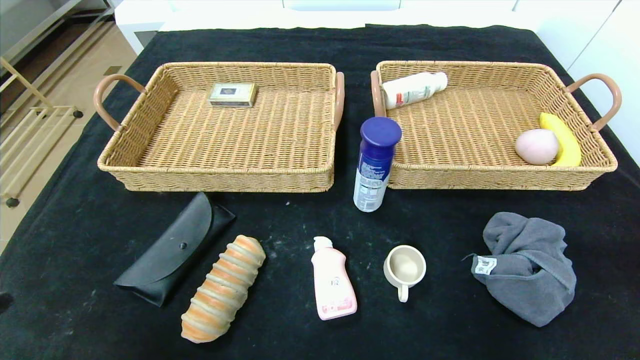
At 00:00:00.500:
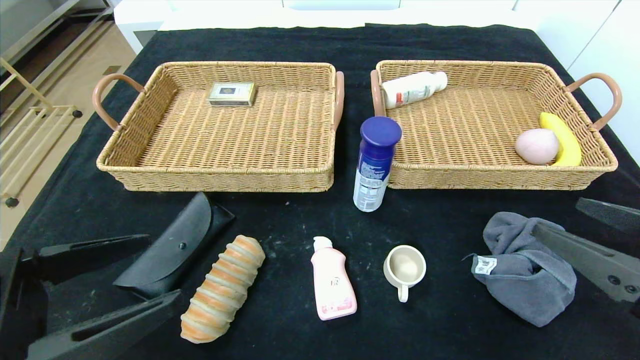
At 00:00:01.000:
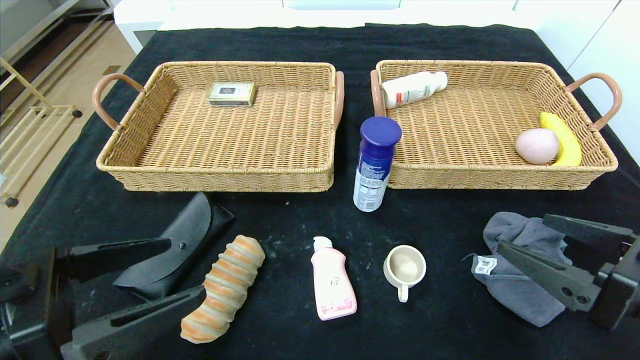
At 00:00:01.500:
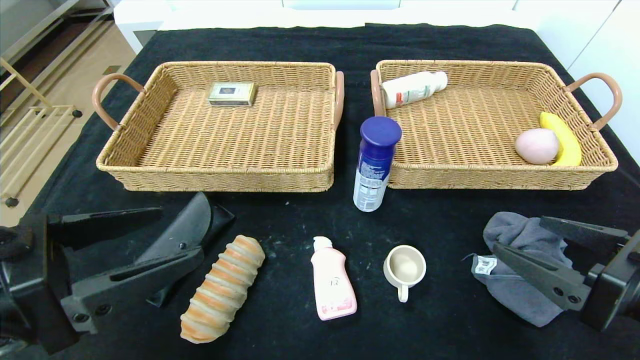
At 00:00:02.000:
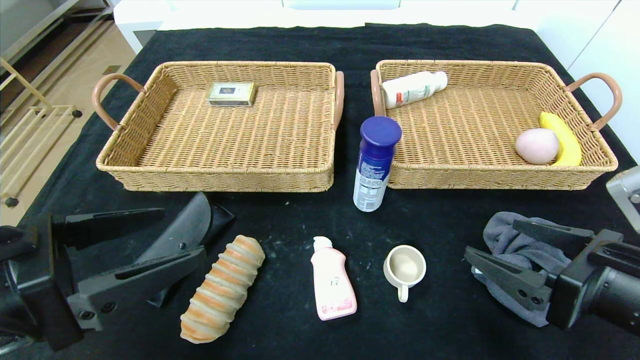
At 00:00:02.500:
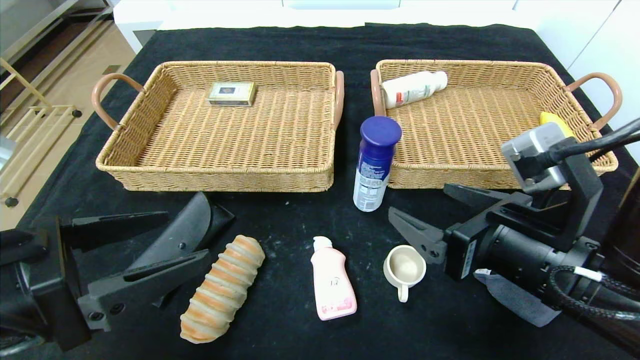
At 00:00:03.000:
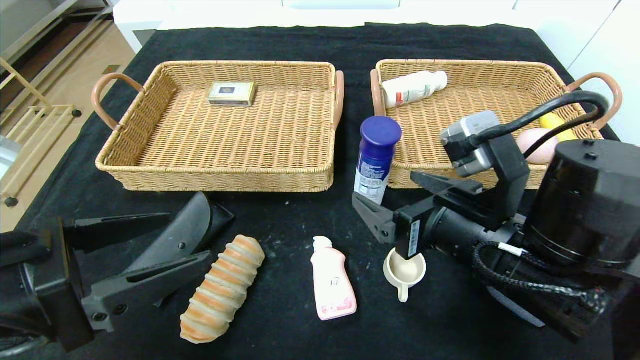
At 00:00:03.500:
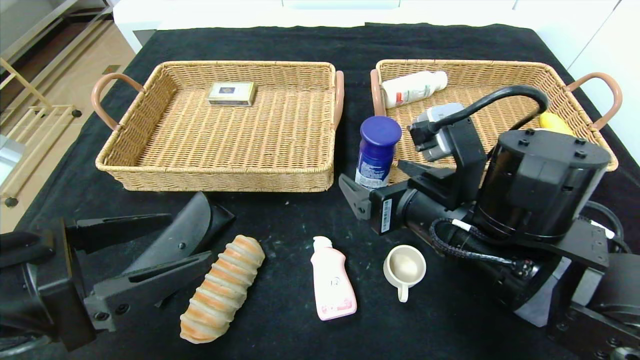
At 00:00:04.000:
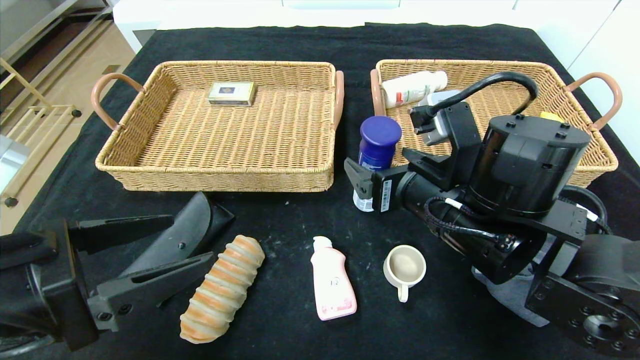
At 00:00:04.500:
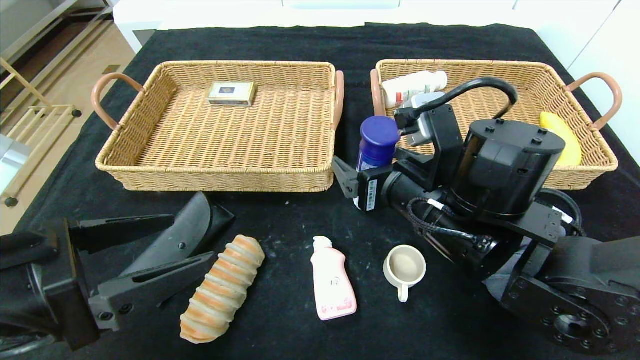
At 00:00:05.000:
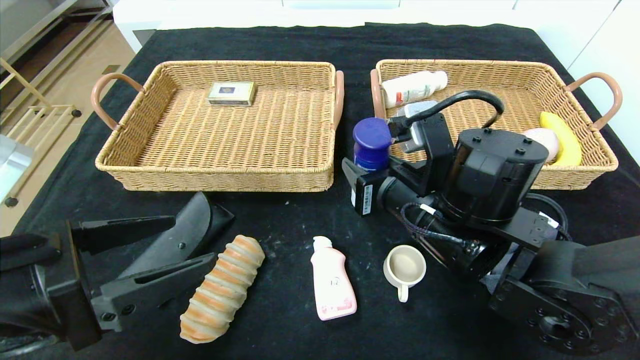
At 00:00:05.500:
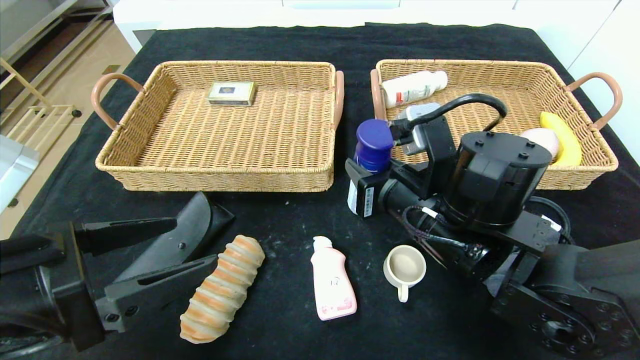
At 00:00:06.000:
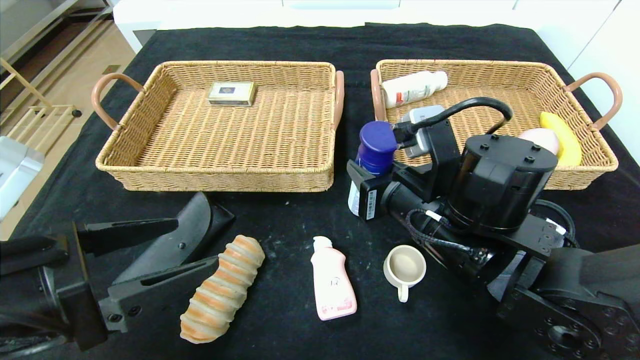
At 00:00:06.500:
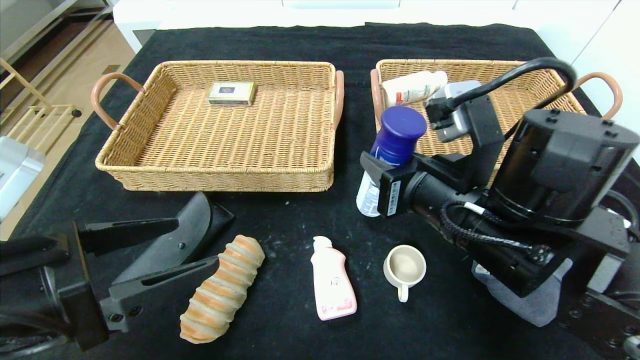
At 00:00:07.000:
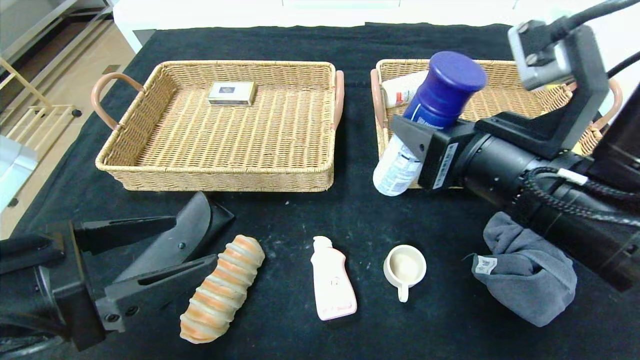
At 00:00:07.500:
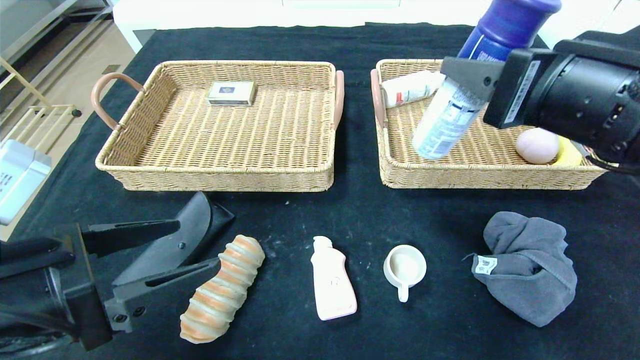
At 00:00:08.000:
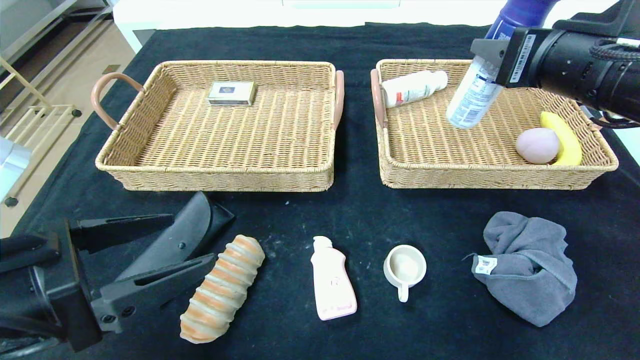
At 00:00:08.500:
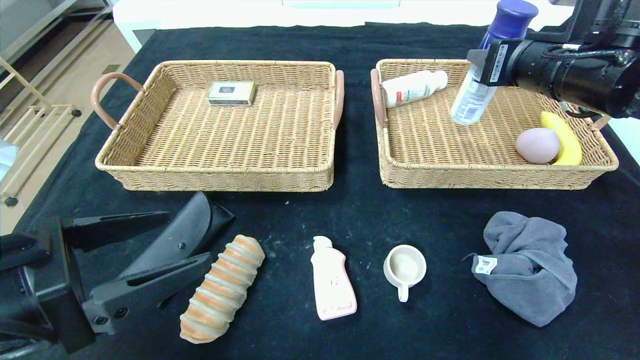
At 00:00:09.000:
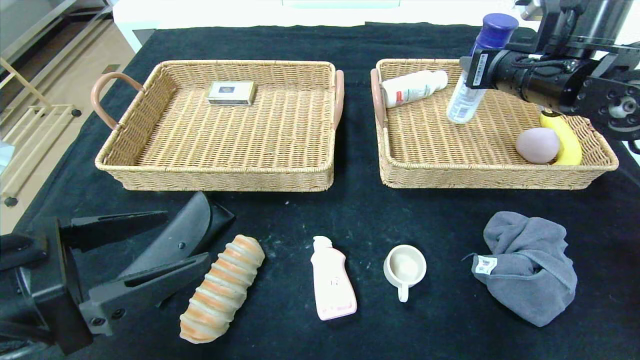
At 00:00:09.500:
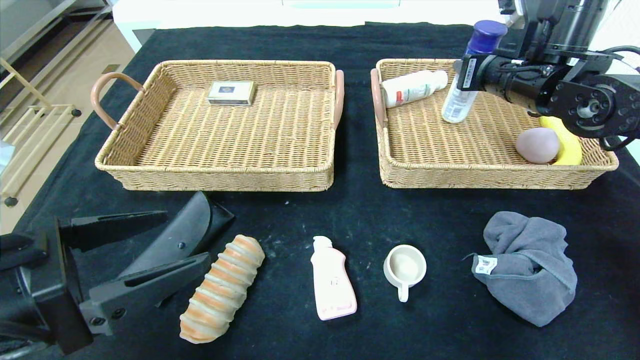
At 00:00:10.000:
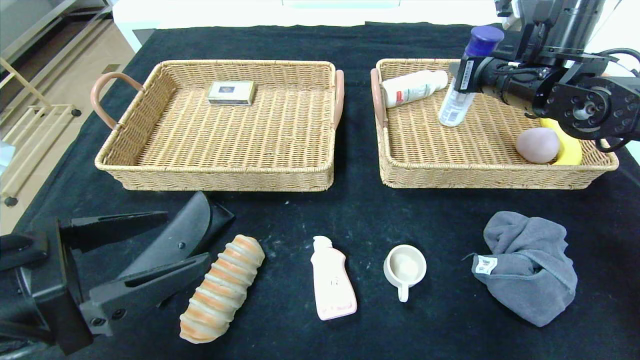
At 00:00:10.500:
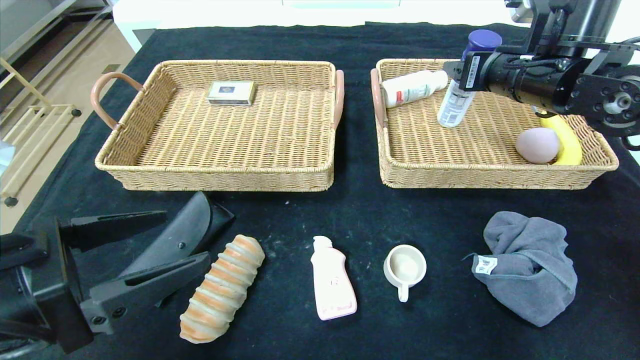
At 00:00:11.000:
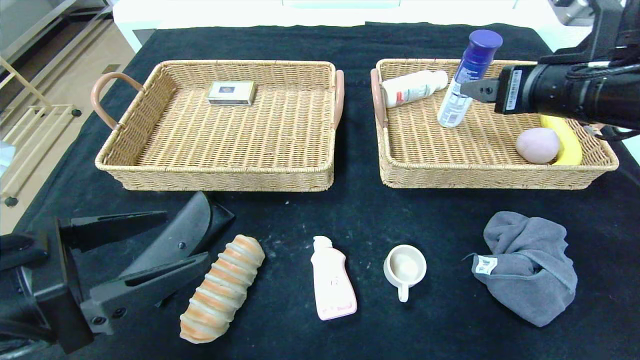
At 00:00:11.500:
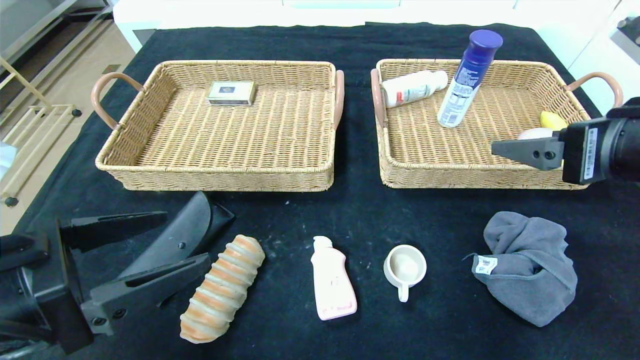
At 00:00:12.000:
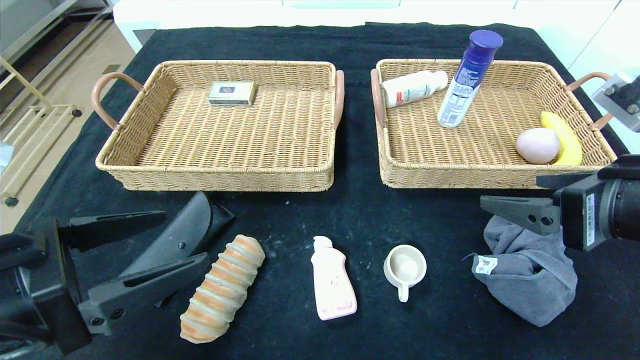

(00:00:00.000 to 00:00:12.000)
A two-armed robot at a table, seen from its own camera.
Step, 00:00:00.000 - 00:00:10.500: Grasp the yogurt and put it in the right basket.
00:00:00.000 - 00:00:02.000: The left gripper travels forward by roughly 10 cm. Meanwhile the right gripper travels forward and to the left by roughly 15 cm.
00:00:02.000 - 00:00:04.000: The right gripper is displaced to the left and forward by approximately 15 cm.
00:00:04.000 - 00:00:06.000: The right gripper closes.
00:00:06.000 - 00:00:08.000: The right gripper goes roughly 20 cm upward and to the right.
00:00:08.000 - 00:00:10.000: The right gripper moves forward, about 15 cm.
00:00:10.000 - 00:00:12.000: The right gripper moves backward, roughly 25 cm, and opens up.

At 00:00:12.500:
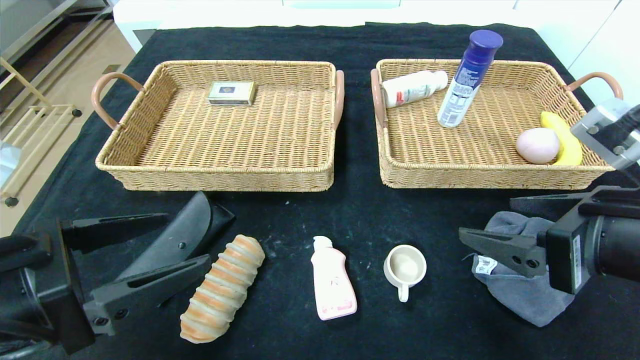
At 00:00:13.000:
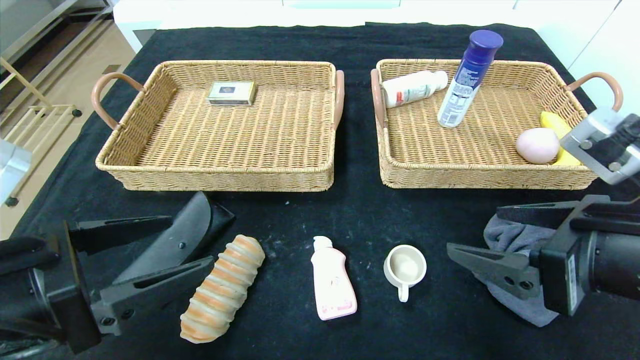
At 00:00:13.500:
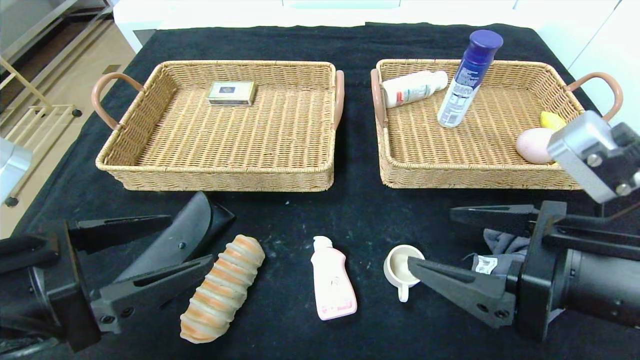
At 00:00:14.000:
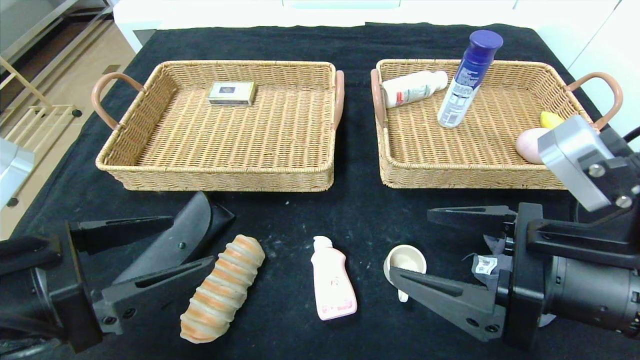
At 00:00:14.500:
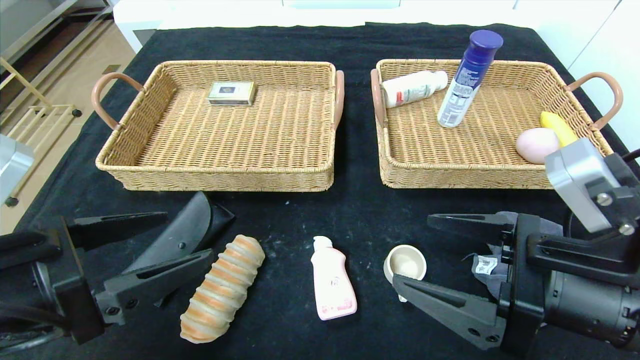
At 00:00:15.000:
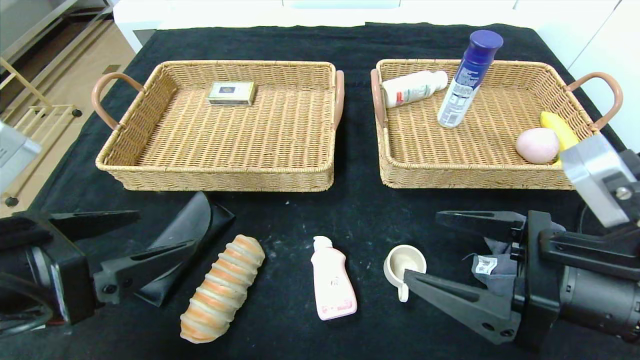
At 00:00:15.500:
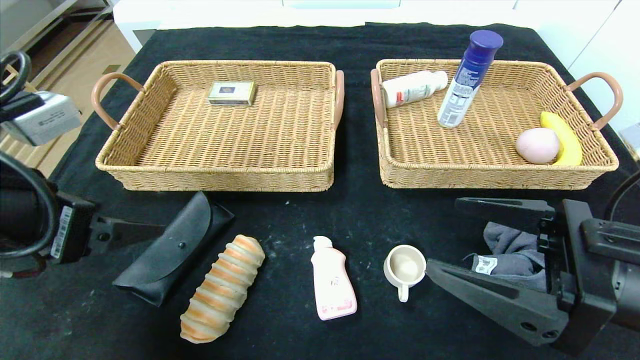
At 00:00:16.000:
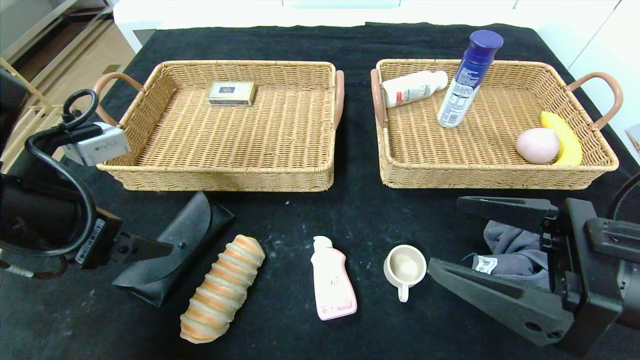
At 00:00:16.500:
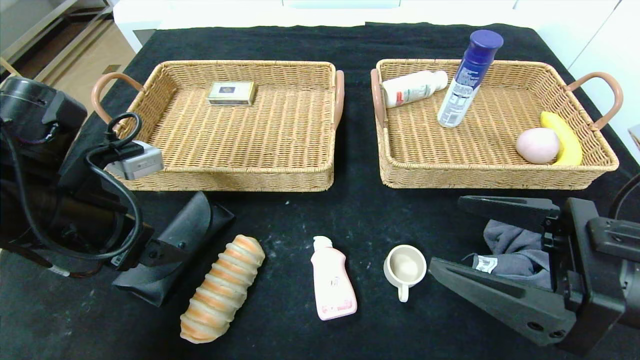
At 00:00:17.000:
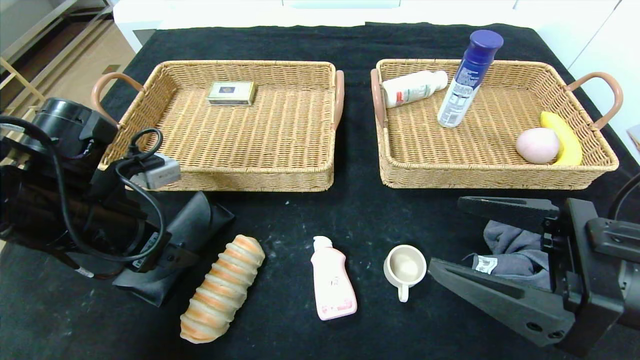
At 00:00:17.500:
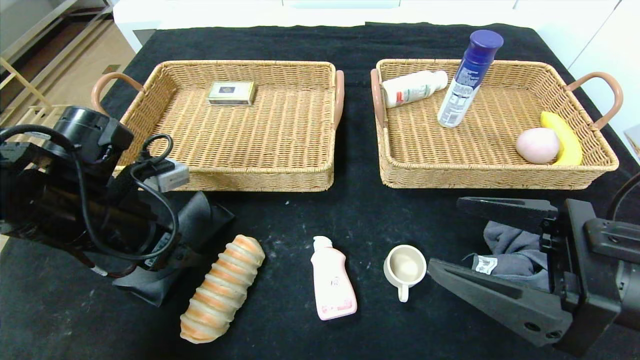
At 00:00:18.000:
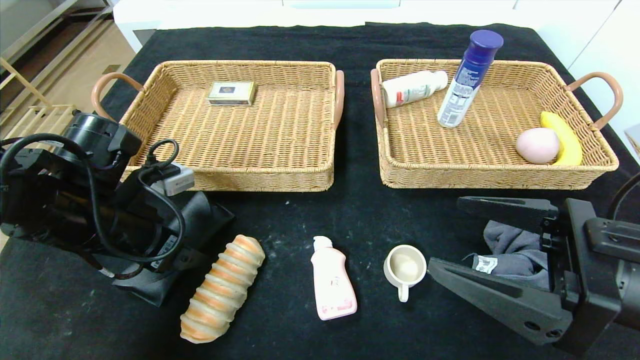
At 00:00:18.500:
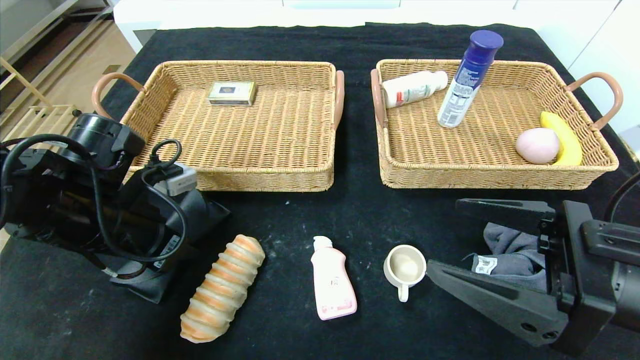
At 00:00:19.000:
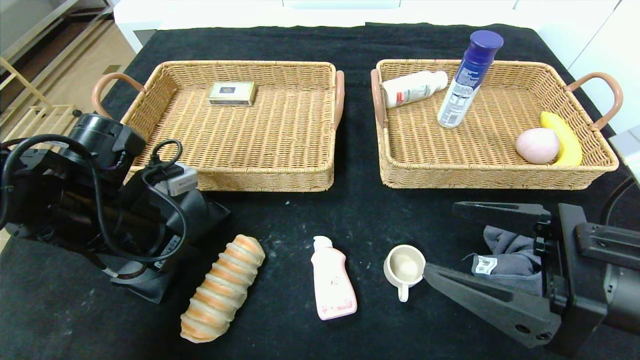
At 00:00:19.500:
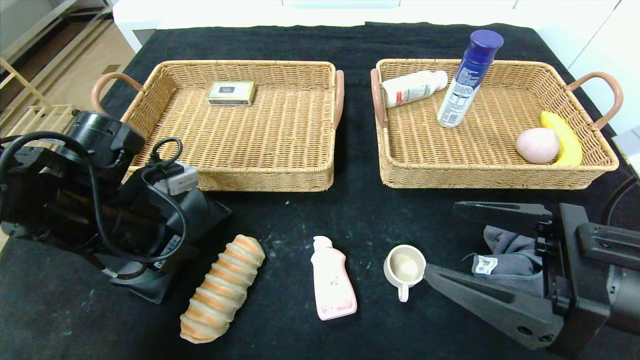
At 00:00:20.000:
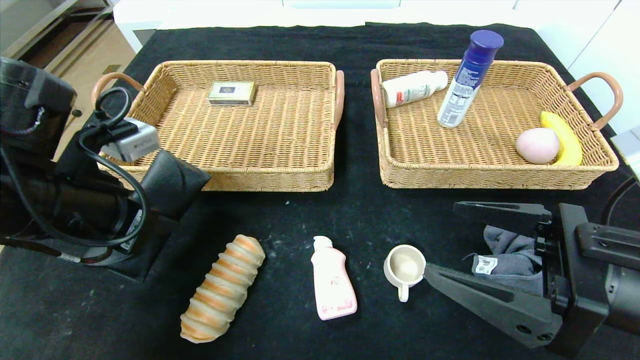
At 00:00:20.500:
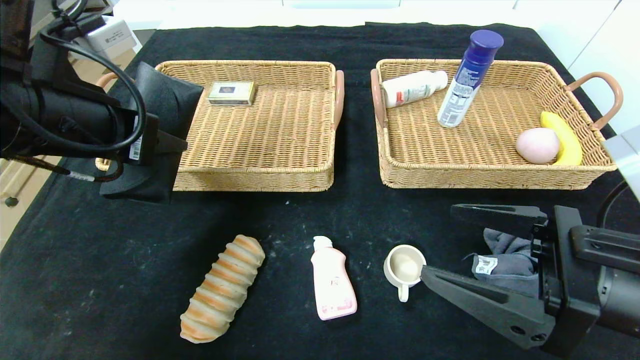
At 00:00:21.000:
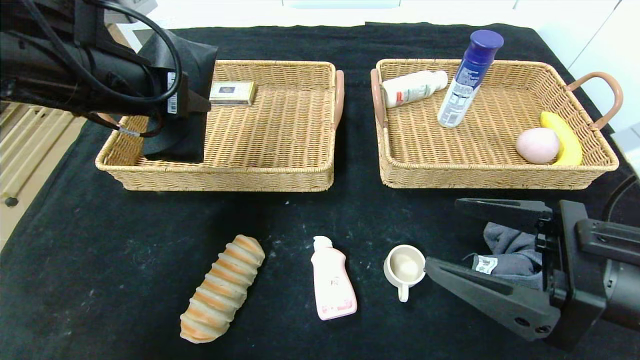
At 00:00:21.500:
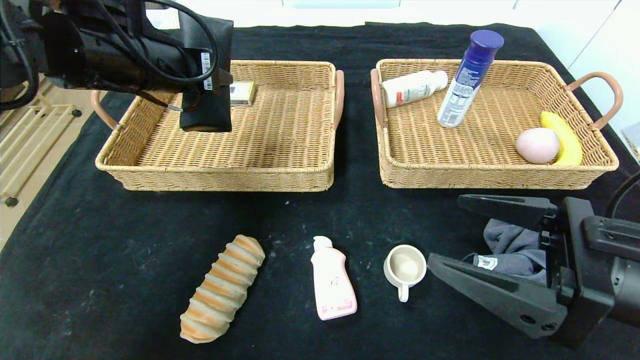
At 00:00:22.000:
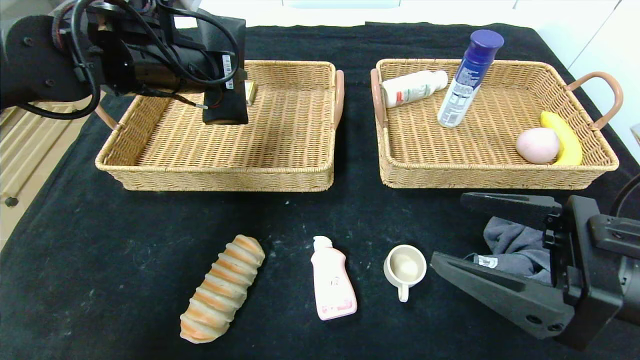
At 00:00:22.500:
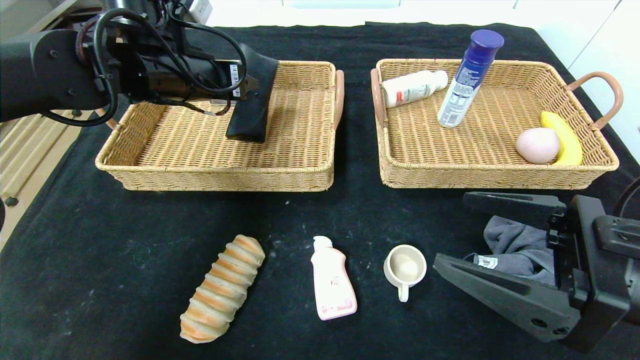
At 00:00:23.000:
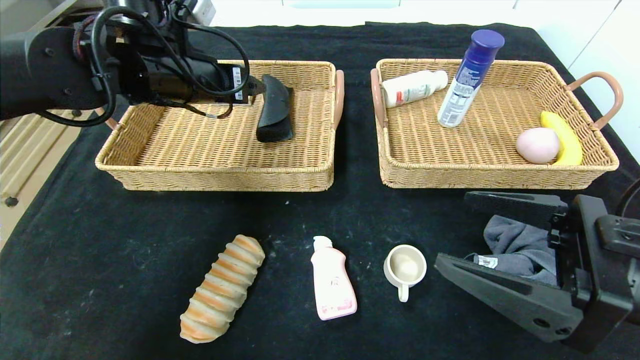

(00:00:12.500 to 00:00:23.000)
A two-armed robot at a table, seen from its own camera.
Step, 00:00:12.500 - 00:00:22.500: Grasp the glasses case and put it in the left basket.
00:00:12.500 - 00:00:14.500: The right gripper ends up roughly 5 cm from where it was.
00:00:14.500 - 00:00:16.500: The left gripper travels forward by approximately 10 cm.
00:00:16.500 - 00:00:19.000: The left gripper ends up about 5 cm from where it was, and closes.
00:00:19.000 - 00:00:21.000: The left gripper moves upward, approximately 15 cm.
00:00:21.000 - 00:00:23.000: The left gripper moves forward, some 10 cm, and opens.
